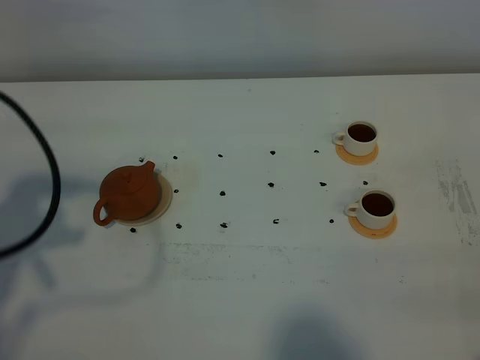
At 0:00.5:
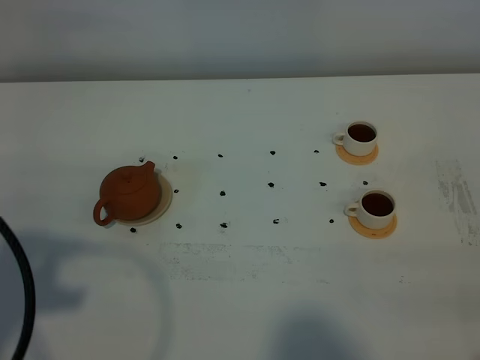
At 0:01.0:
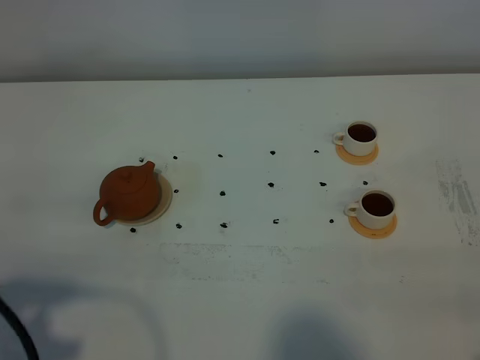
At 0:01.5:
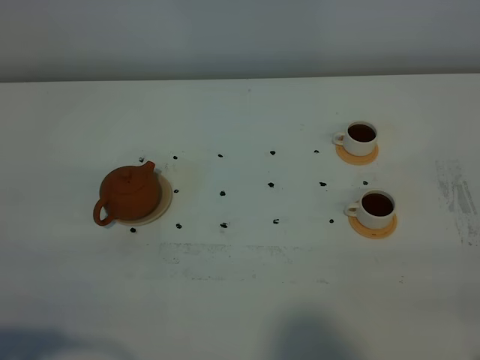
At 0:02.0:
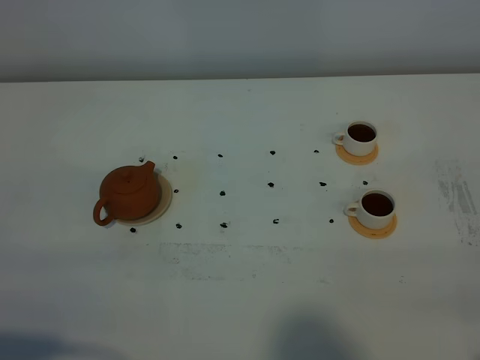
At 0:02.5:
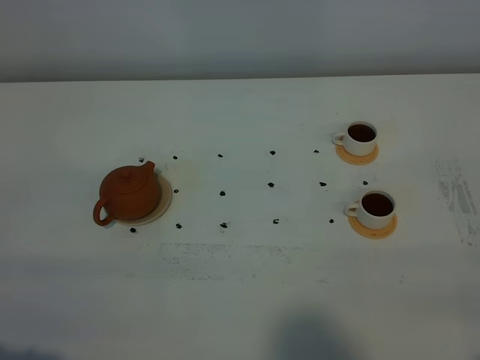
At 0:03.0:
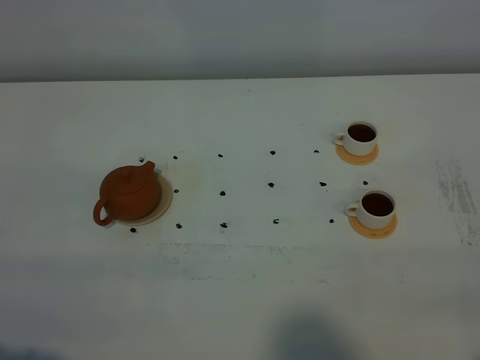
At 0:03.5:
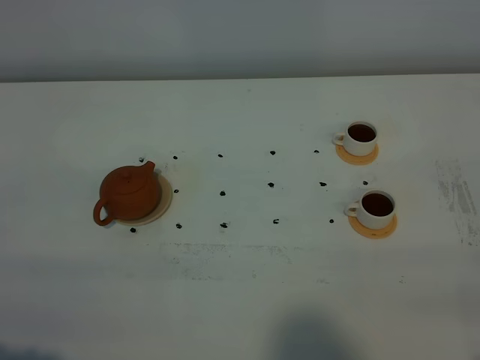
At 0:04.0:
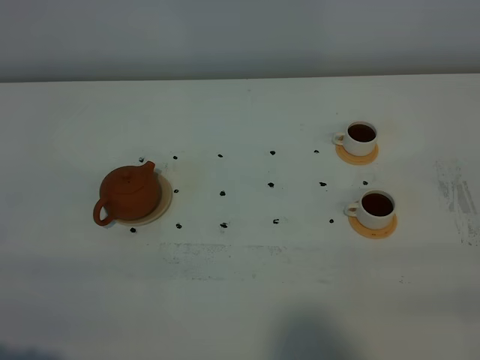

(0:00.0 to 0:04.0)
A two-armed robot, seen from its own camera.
Task of the whole recording: grasp the brown teapot and pour the tea into the two white teacups one by one, put the brown teapot back in its original place.
0:00.0 - 0:02.0: The left gripper travels backward by some 15 cm.
